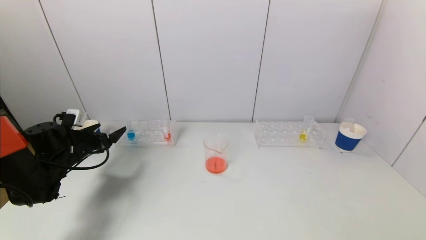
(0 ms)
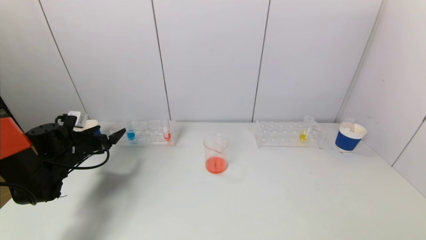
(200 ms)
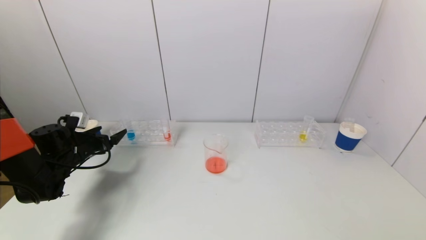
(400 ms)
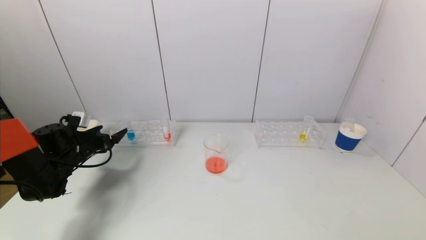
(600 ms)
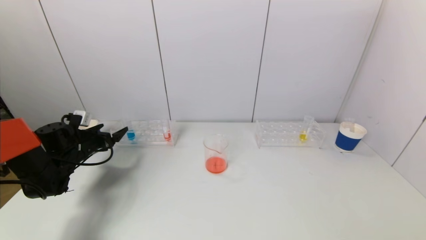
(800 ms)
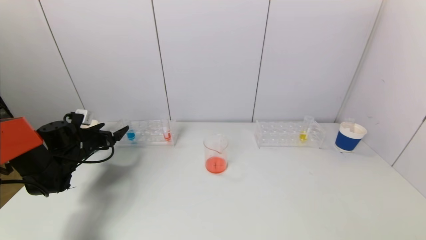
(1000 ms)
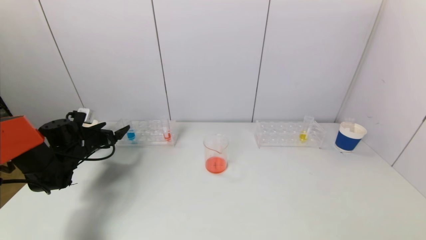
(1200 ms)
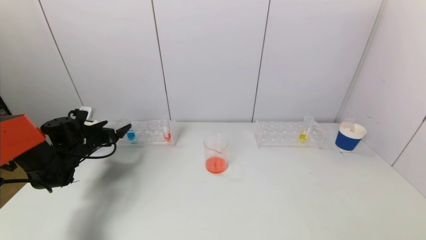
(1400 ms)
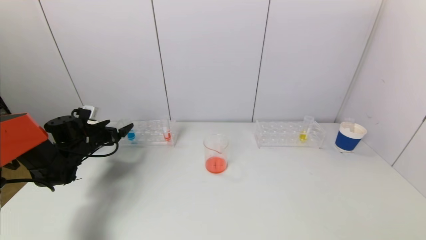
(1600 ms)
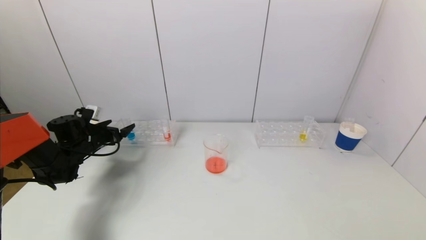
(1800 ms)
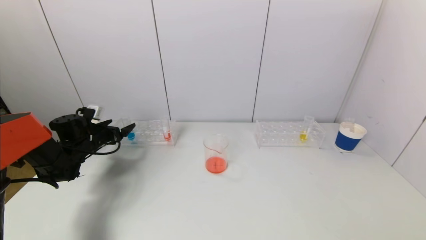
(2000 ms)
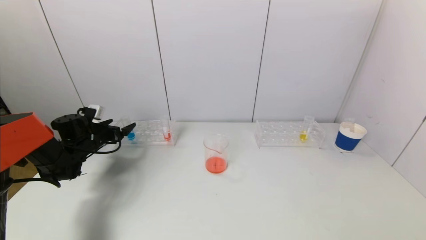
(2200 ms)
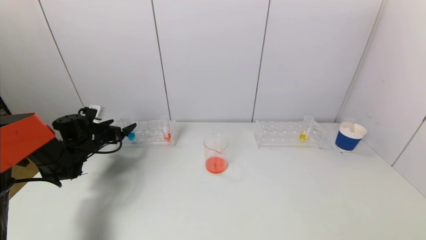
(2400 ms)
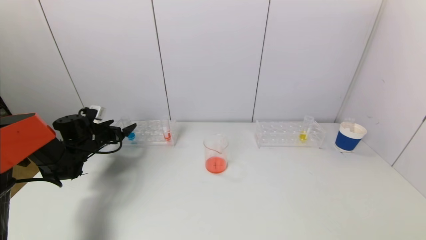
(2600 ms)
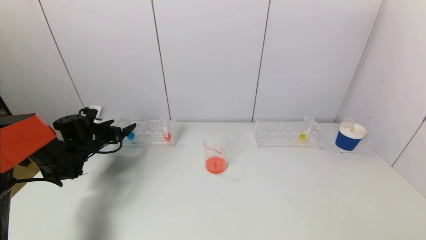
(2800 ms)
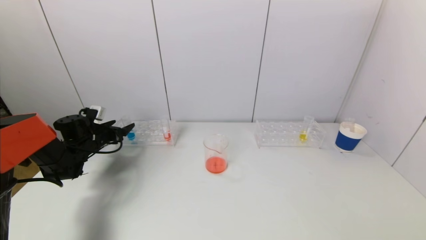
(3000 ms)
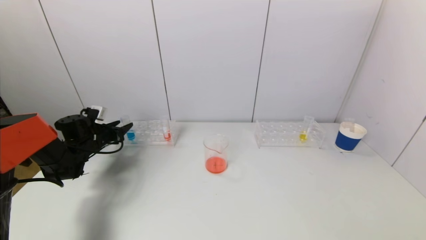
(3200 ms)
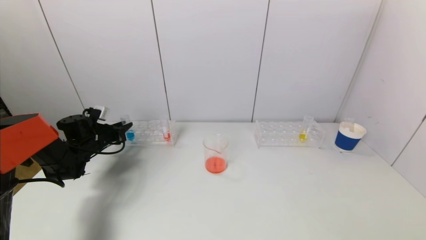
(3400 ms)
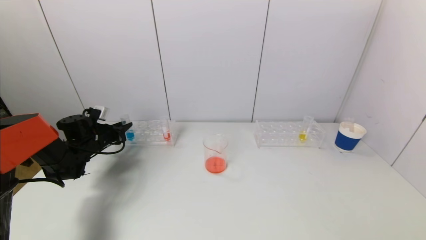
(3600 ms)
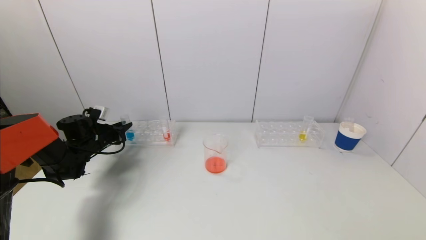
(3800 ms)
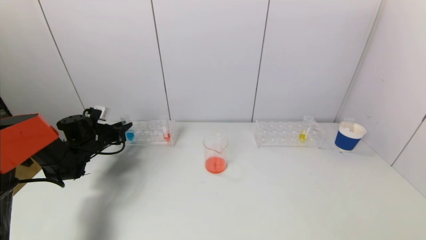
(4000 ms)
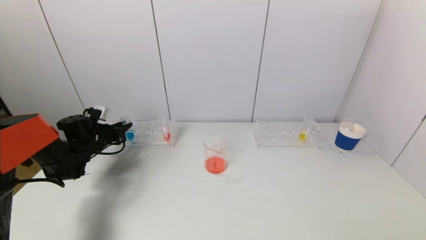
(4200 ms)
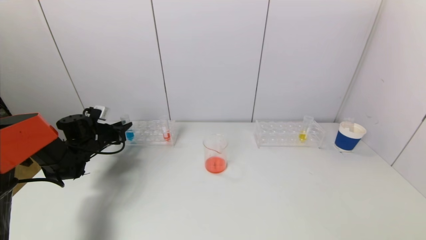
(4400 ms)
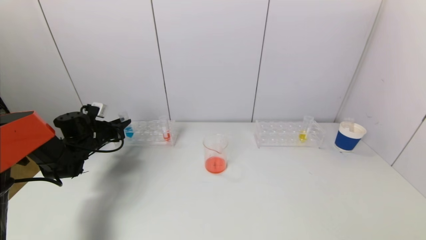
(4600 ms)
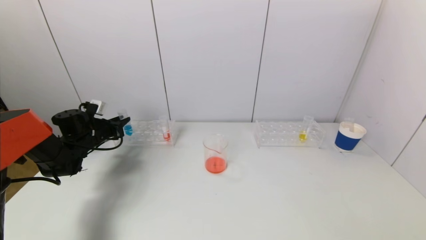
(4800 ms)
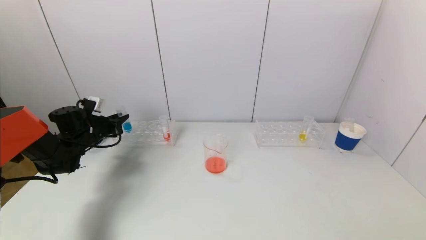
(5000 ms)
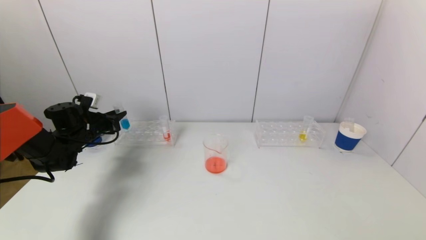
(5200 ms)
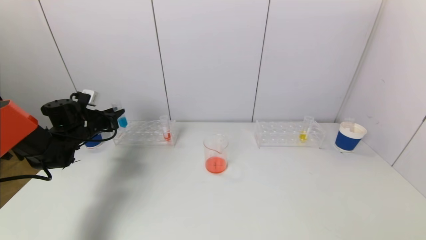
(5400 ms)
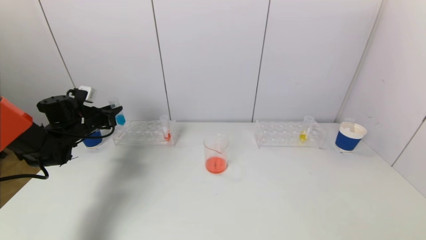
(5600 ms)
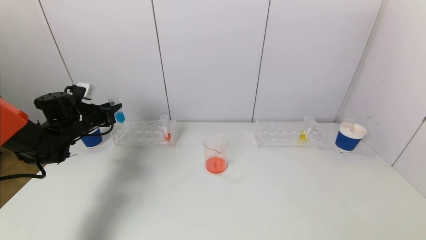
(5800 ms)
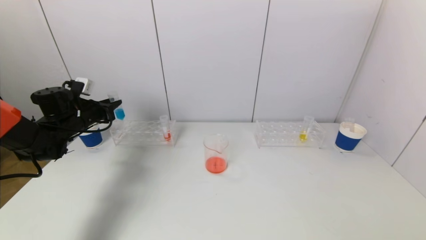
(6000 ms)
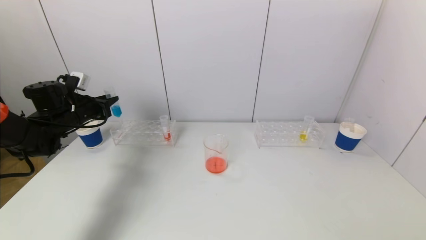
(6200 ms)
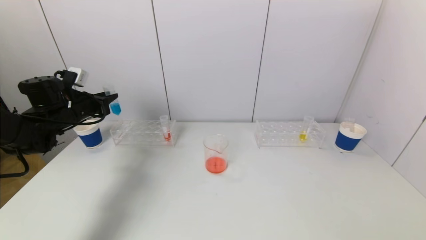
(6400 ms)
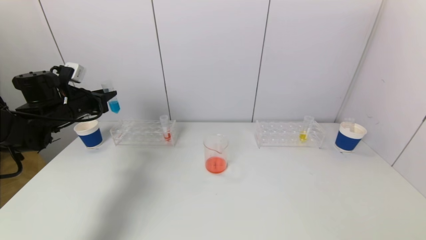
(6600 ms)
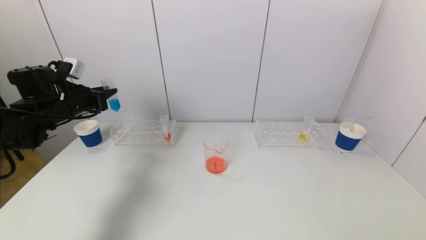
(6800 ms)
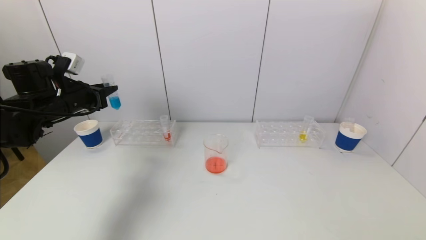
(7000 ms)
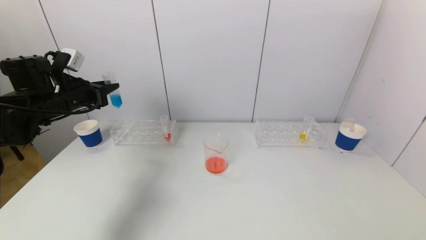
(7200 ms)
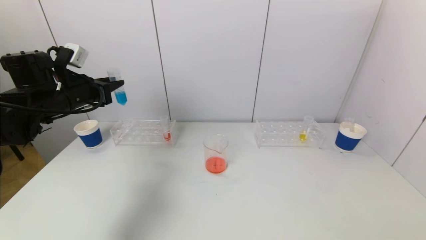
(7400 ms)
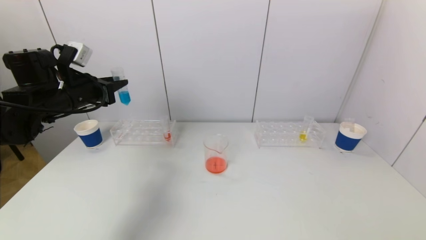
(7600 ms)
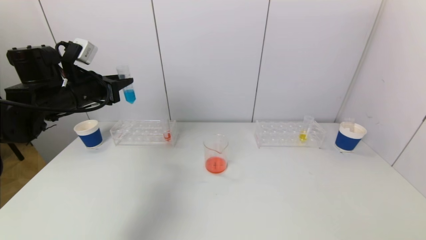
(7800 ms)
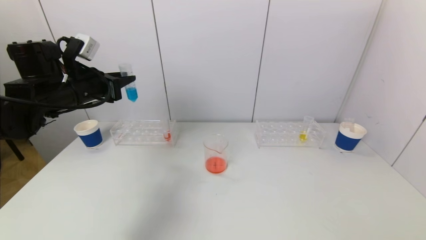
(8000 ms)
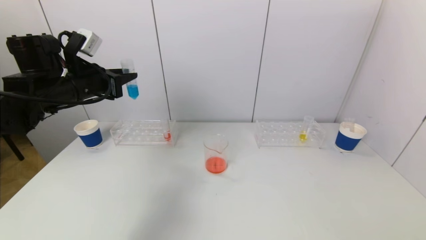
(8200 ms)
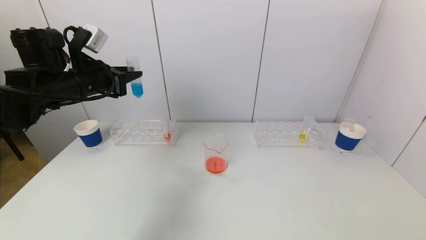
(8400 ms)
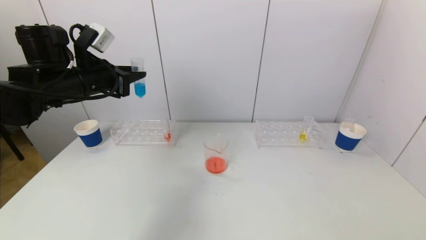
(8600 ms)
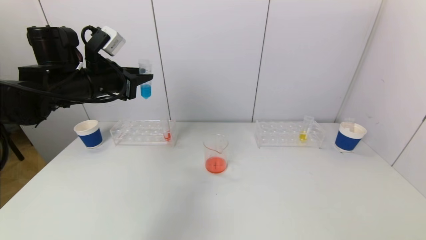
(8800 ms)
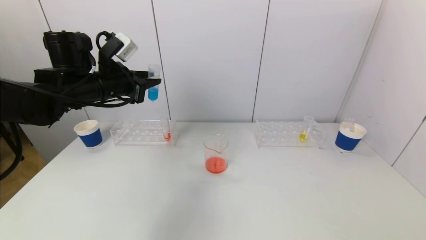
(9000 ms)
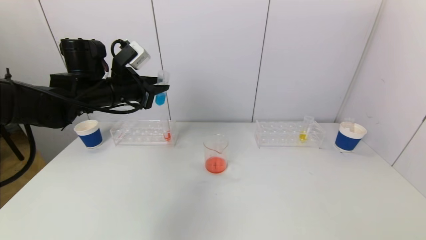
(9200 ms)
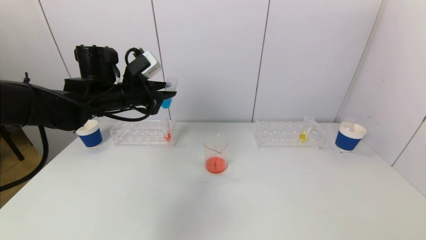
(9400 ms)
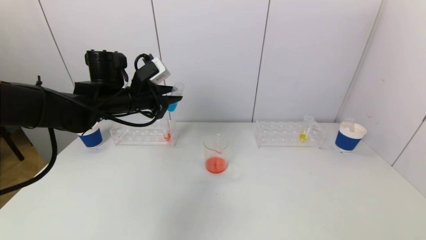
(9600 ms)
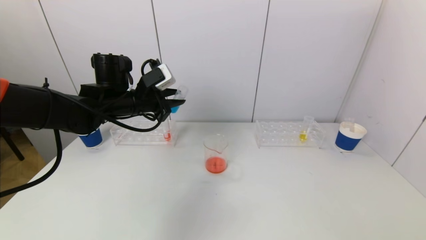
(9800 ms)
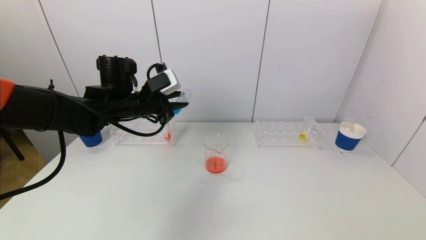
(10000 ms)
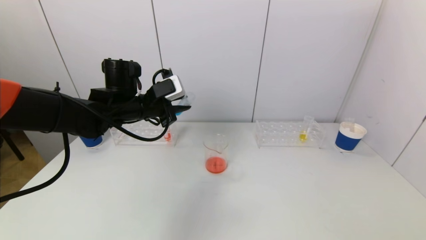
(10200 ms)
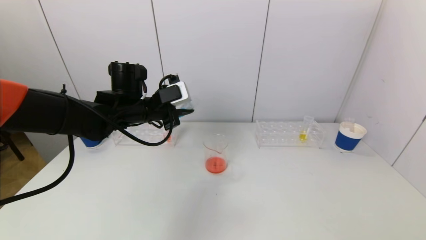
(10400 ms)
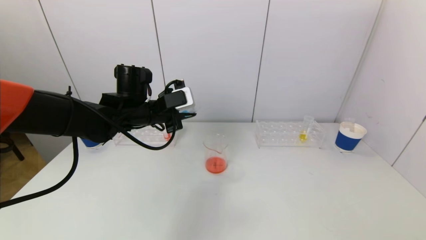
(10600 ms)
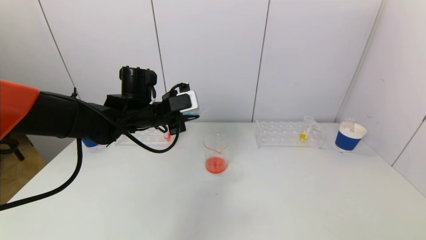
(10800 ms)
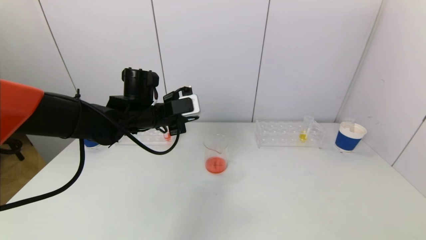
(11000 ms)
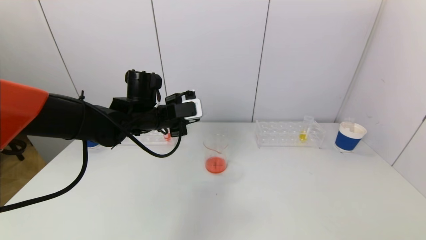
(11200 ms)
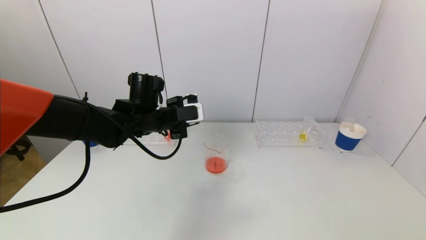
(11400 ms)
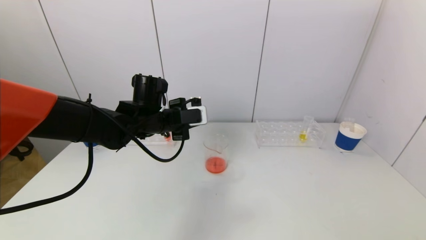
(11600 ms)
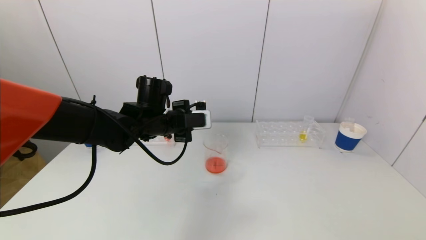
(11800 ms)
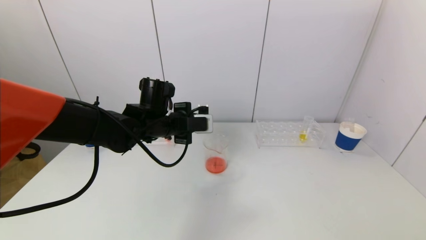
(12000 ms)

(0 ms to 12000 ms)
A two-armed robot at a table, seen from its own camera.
Task of the whole recording: pick up a test tube with pigment on left test tube rack and a test tube with pigment on right test tube rack by grippers and pour them into the beaker.
Step, 0 ms - 4000 ms: Grasp the blue reagent with the left gripper.
0 ms - 1600 ms: The left gripper heads forward, covering about 5 cm.
1600 ms - 3000 ms: The grippers move only a little.
3000 ms - 4400 ms: The left gripper closes its fingers.
4400 ms - 6000 ms: The left gripper heads upward, covering some 10 cm.
6000 ms - 7600 ms: The left gripper moves upward, backward and to the right, some 15 cm.
7600 ms - 9000 ms: The left gripper is displaced to the right by approximately 5 cm.
9000 ms - 10400 ms: The left gripper travels to the right and downward by roughly 10 cm.
10400 ms - 12000 ms: The left gripper shifts by approximately 5 cm.

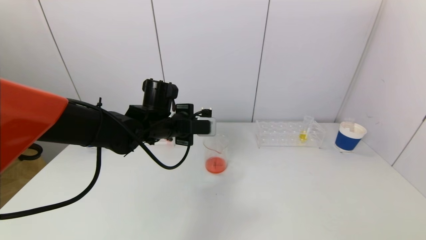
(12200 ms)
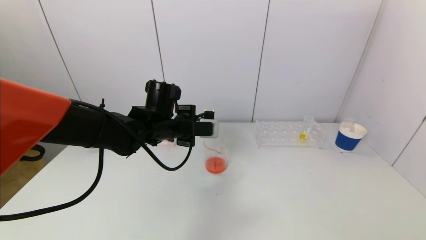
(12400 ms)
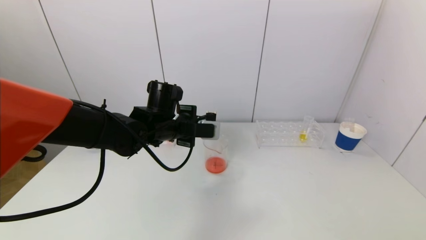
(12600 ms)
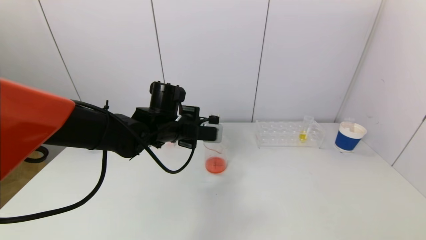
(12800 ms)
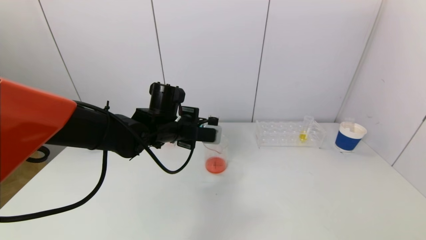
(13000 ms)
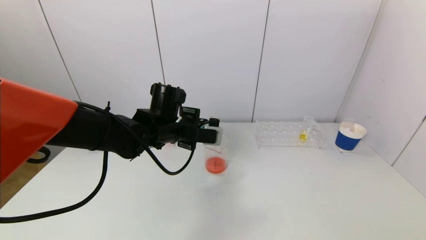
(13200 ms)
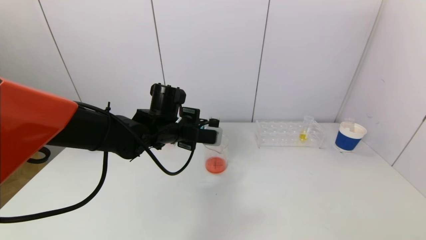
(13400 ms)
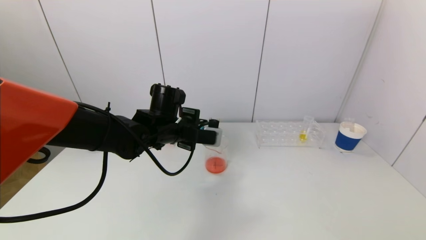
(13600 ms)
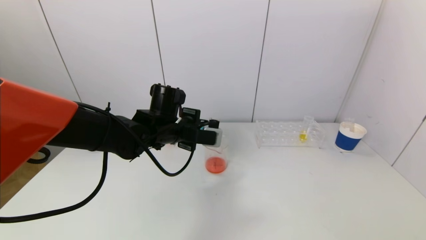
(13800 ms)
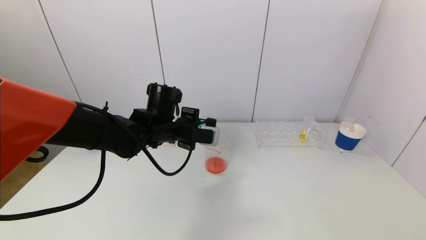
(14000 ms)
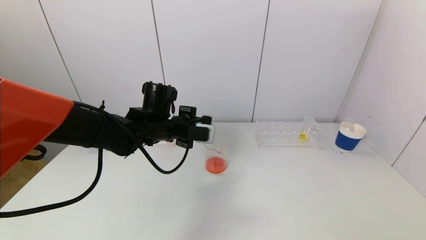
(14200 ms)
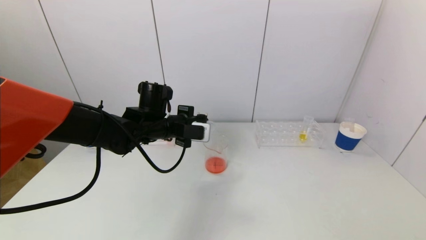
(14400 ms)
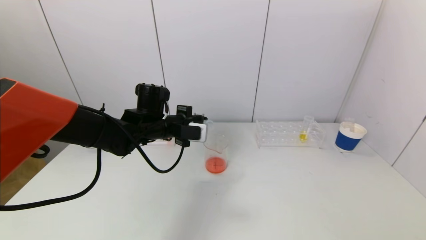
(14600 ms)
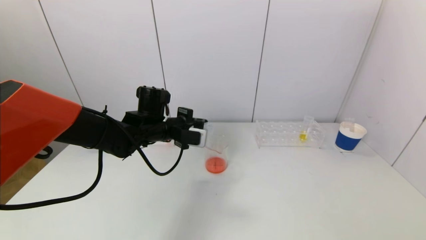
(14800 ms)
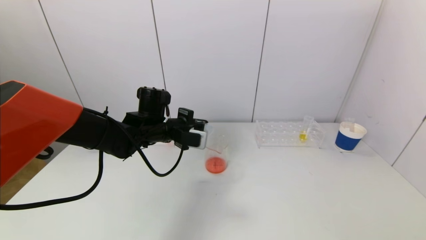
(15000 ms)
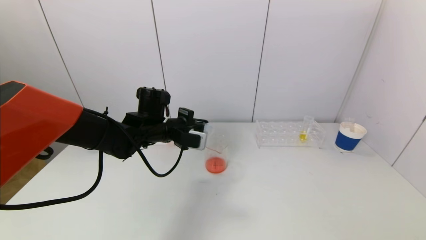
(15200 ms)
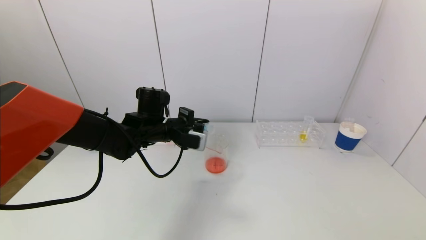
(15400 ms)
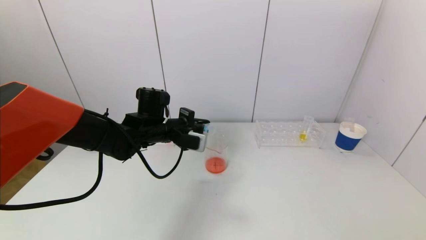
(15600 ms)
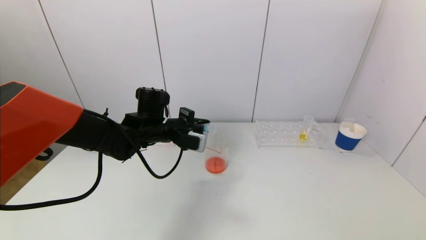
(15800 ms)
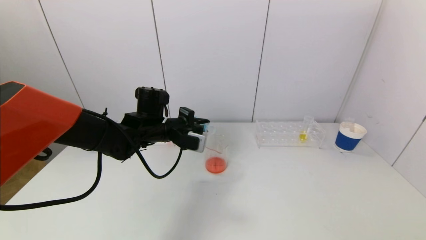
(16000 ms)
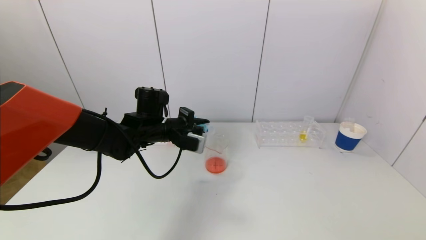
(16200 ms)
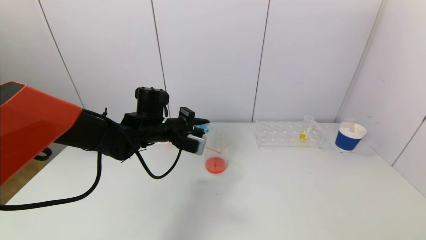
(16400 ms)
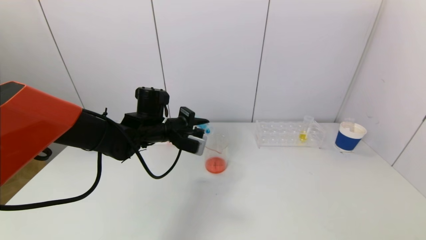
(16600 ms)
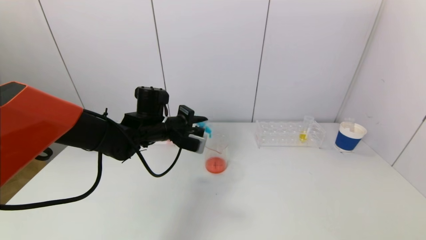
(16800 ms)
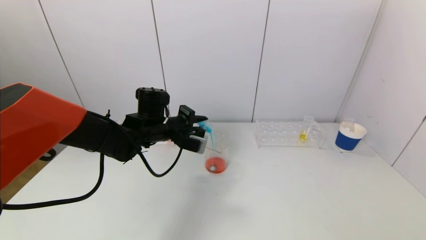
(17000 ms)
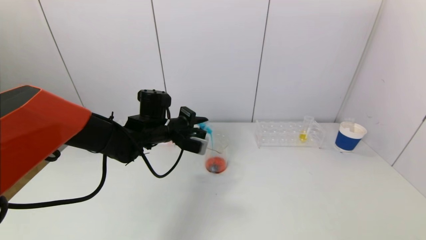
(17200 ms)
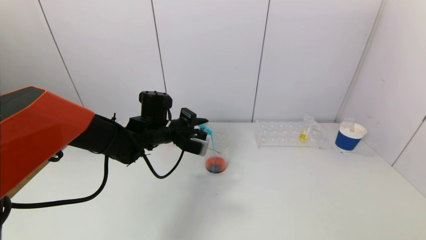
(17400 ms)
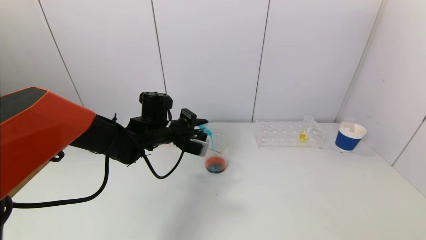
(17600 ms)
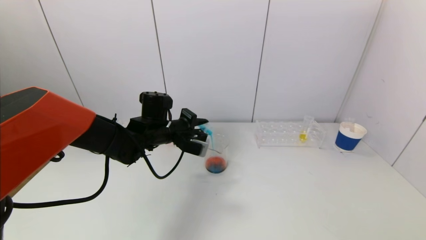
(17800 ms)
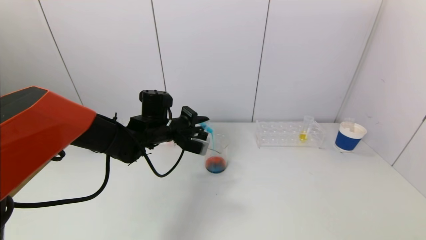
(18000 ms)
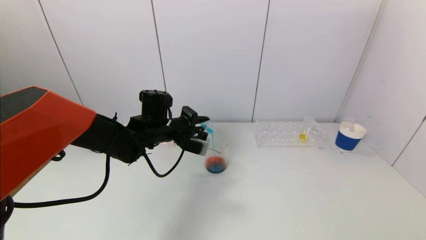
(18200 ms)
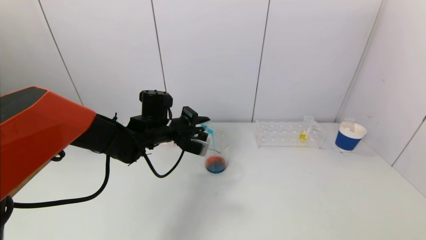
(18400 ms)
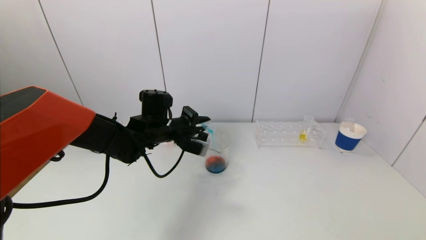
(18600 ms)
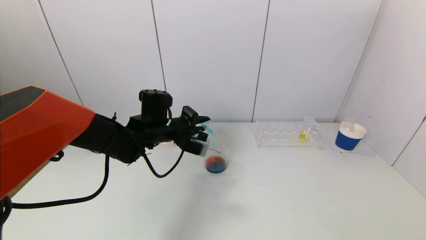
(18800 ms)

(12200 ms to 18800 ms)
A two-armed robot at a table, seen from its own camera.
Task of the whole recording: pick up a test tube with pigment on left test tube rack and a test tube with pigment on right test tube rack by grippers and pour them into the beaker.
12200 ms - 15400 ms: There are only small adjustments of the grippers.
15400 ms - 18800 ms: The grippers stay close to where they were, moving slightly.
